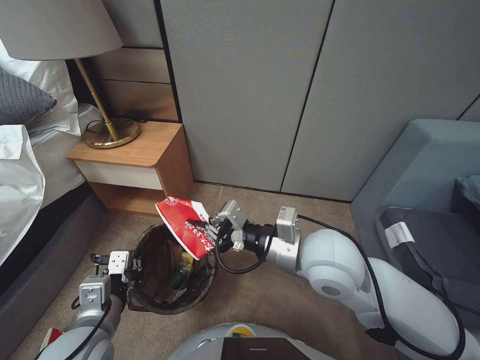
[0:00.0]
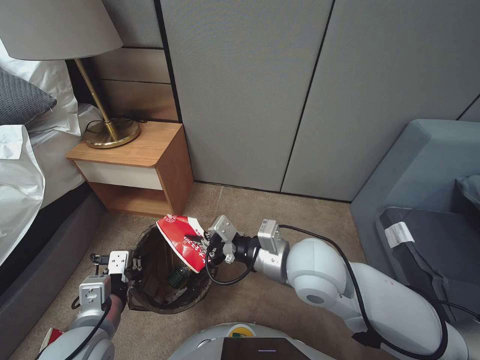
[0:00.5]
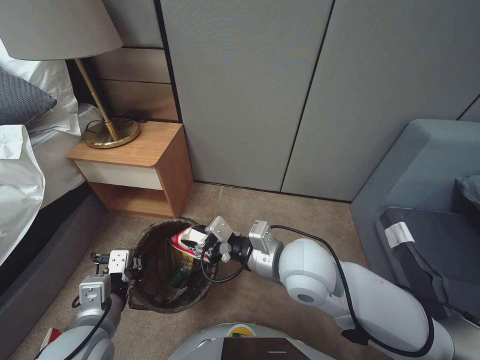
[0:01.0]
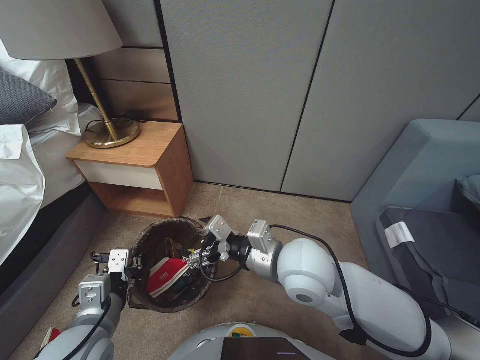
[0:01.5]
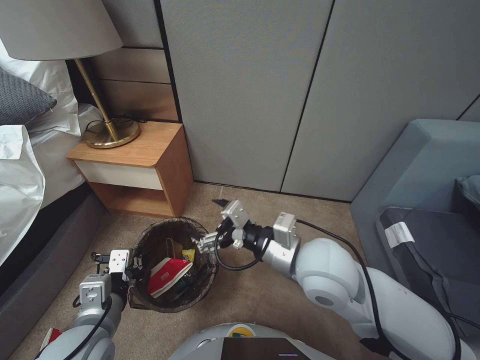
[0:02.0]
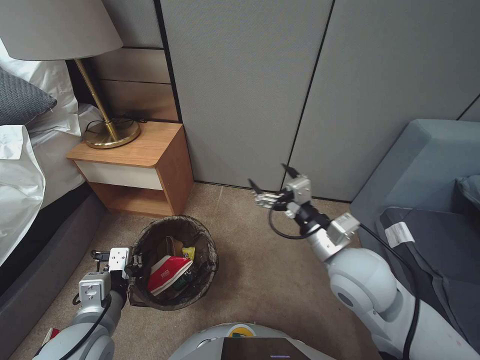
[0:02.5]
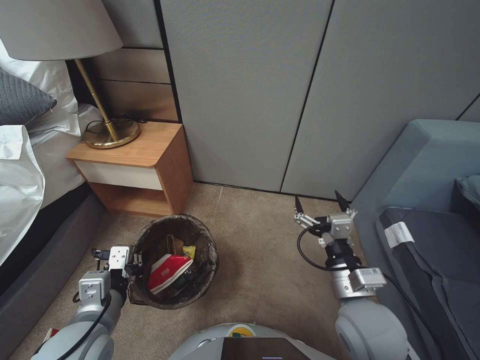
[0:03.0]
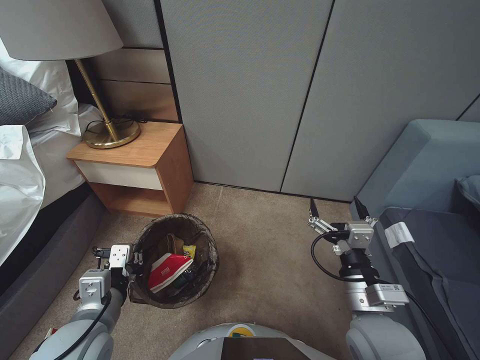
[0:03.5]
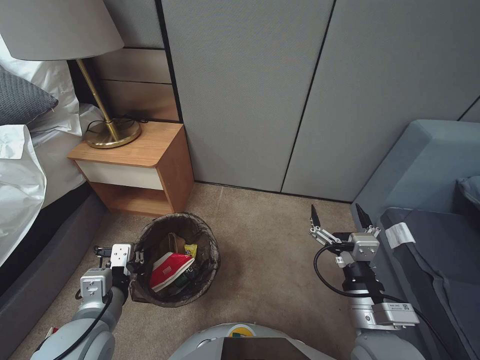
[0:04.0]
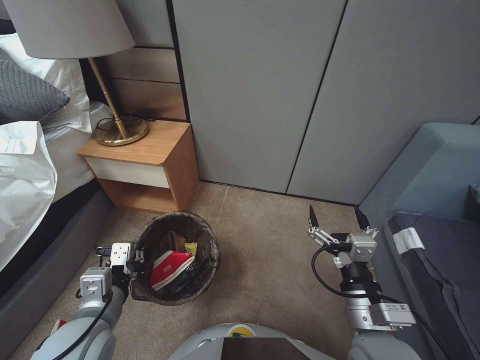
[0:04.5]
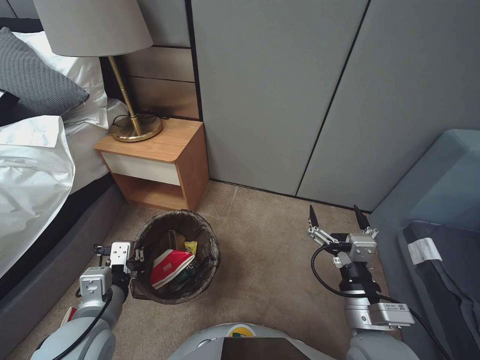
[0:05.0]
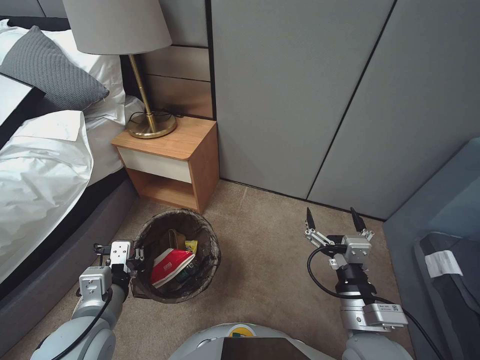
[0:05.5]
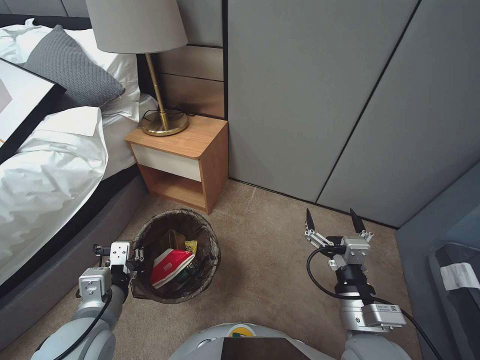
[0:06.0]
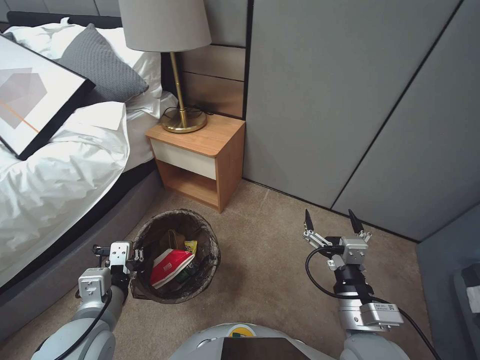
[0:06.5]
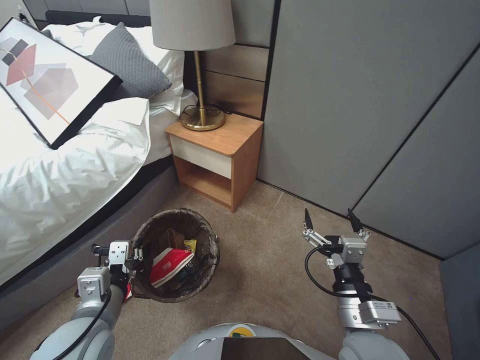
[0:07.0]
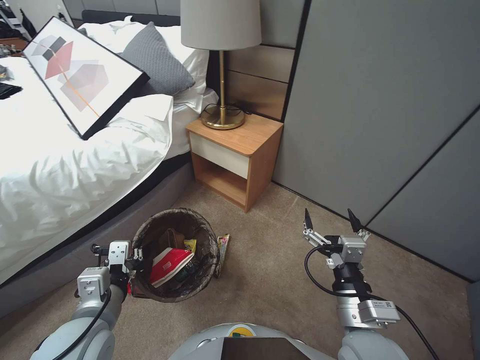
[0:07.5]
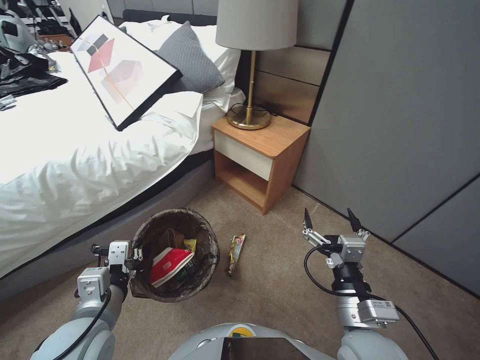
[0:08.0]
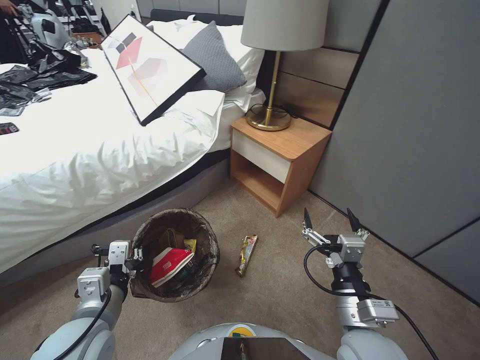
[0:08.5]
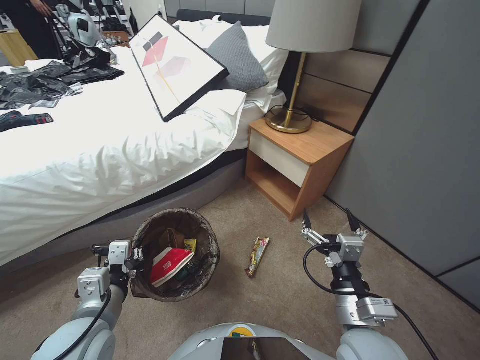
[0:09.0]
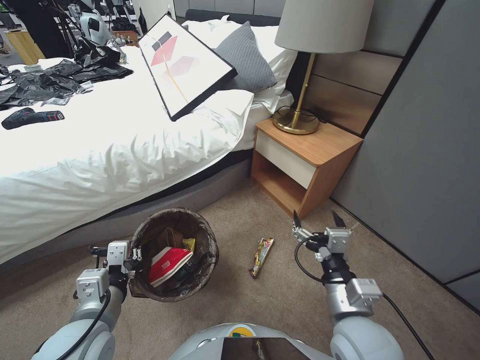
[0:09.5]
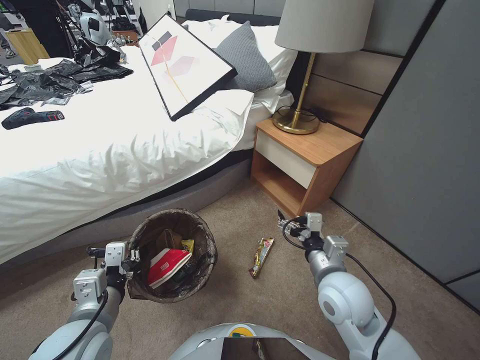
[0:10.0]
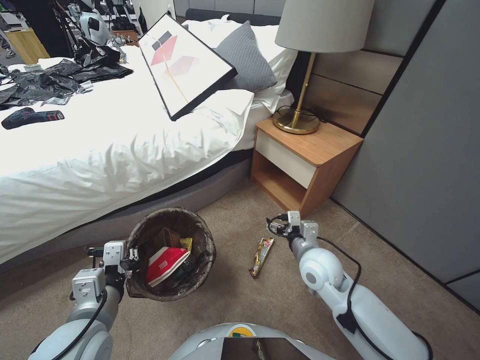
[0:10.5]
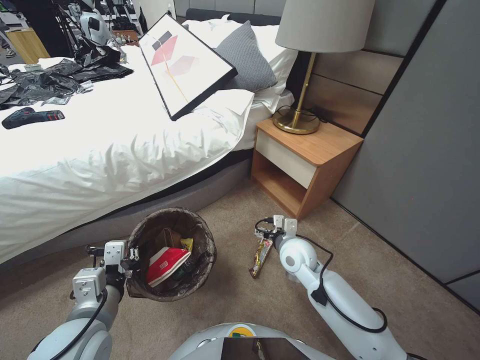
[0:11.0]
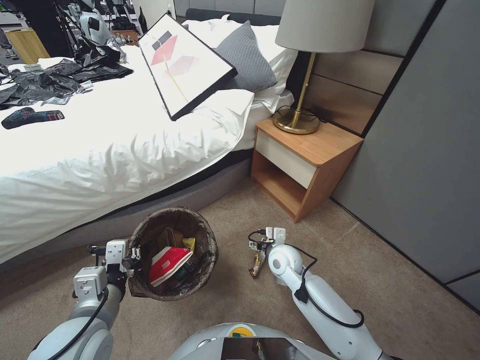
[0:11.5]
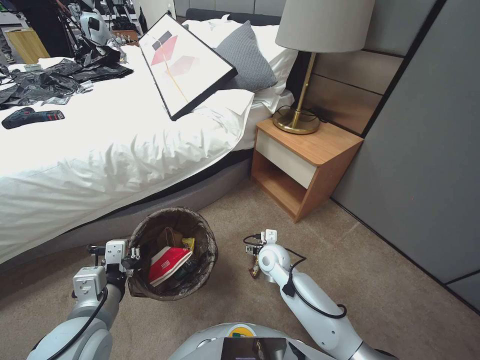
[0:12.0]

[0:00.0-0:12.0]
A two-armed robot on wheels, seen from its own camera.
Task of the whole recording: Pick up the trash bin, then pick up the garbage from the floor and place it into the trash bin.
0:00.0 to 0:02.0: The right gripper opens its fingers.
0:02.0 to 0:04.0: The right gripper moves backward, to the right and downward, about 20 cm.
0:08.0 to 0:10.0: The right gripper is displaced forward by roughly 10 cm.
0:10.0 to 0:12.0: The right gripper is displaced downward, forward and to the left by about 20 cm.

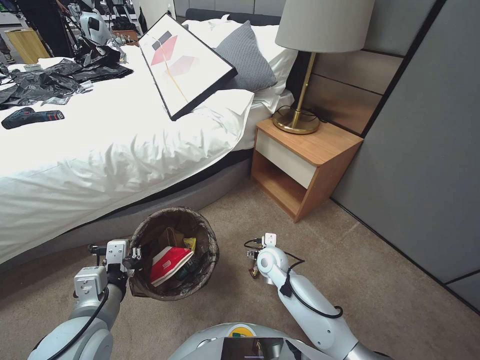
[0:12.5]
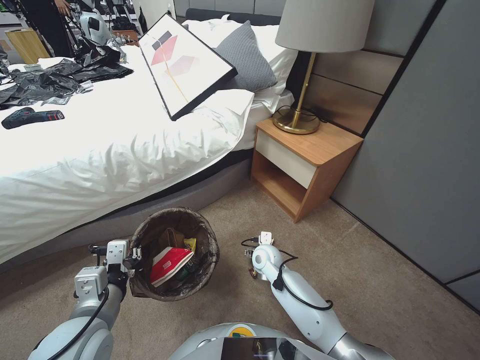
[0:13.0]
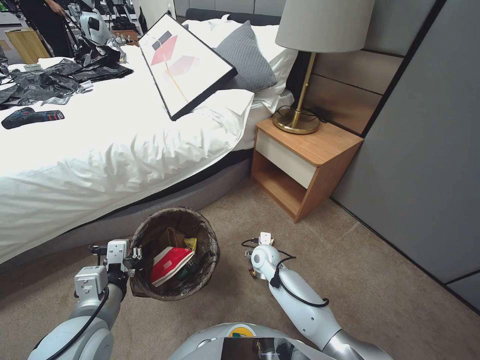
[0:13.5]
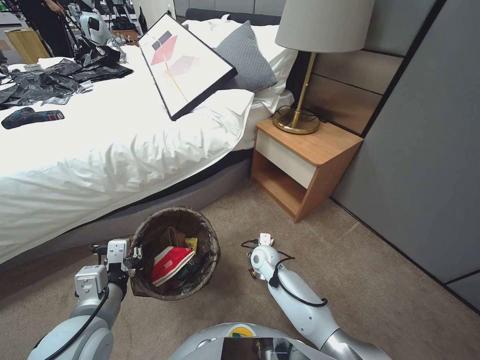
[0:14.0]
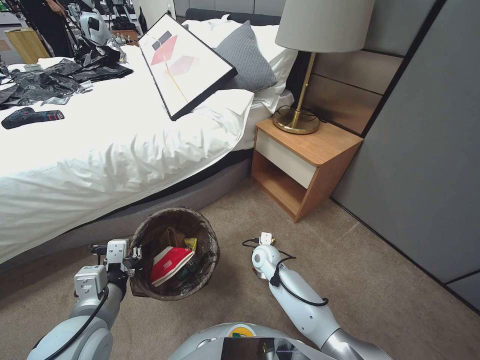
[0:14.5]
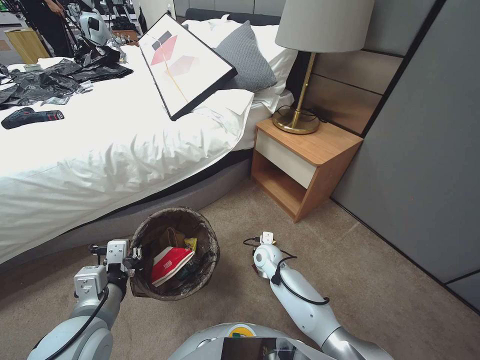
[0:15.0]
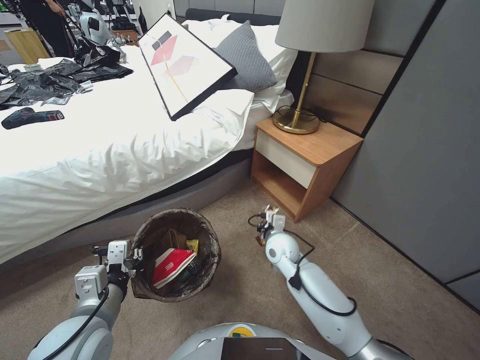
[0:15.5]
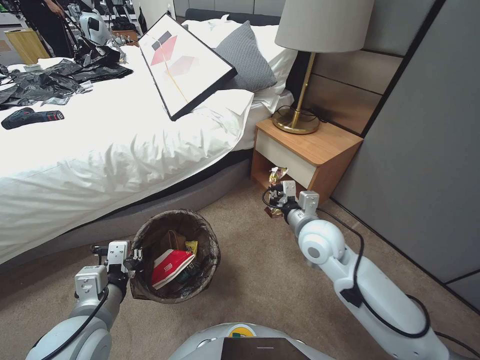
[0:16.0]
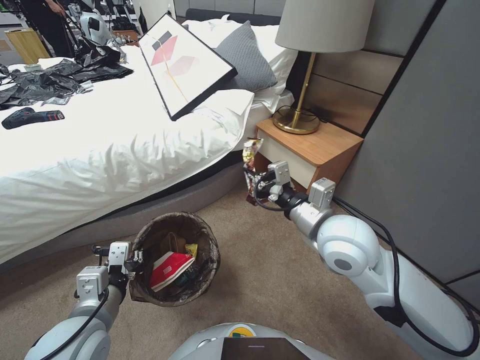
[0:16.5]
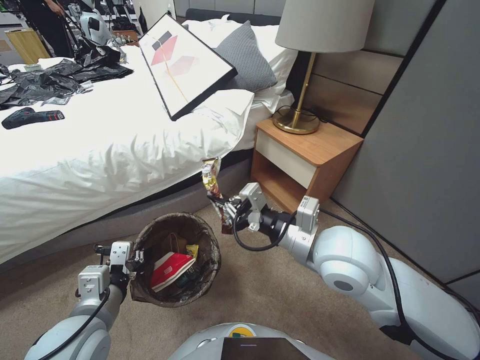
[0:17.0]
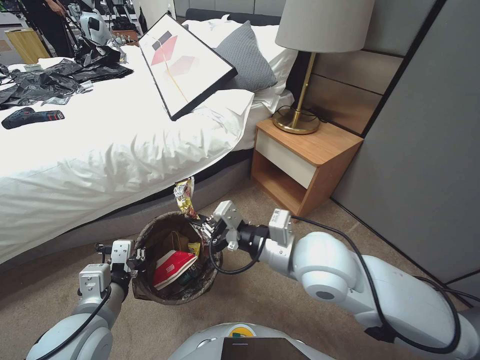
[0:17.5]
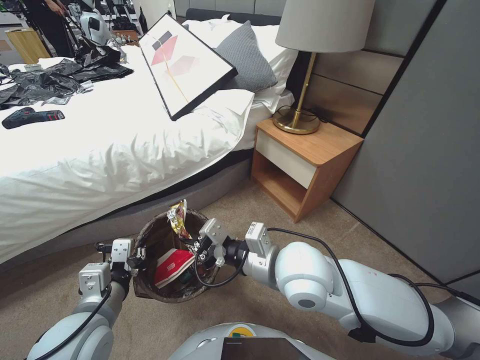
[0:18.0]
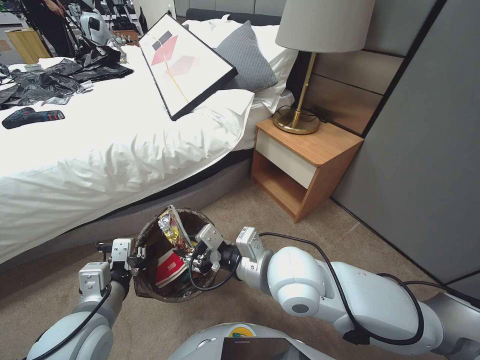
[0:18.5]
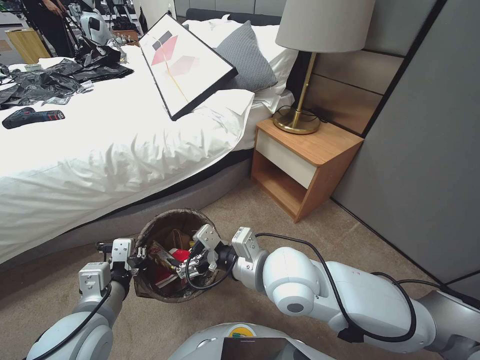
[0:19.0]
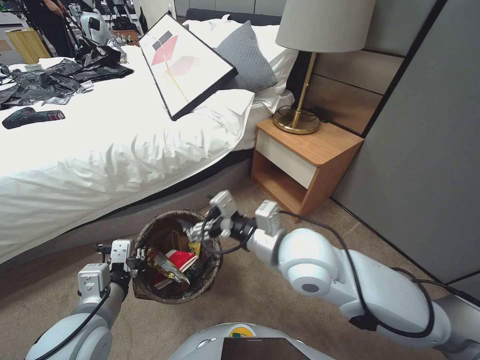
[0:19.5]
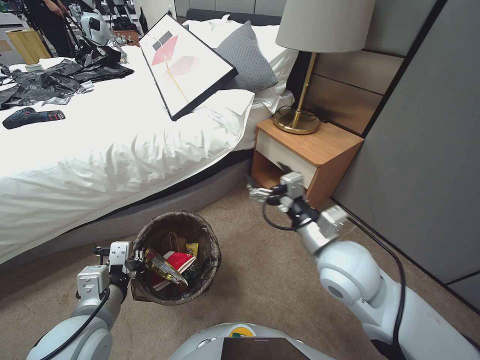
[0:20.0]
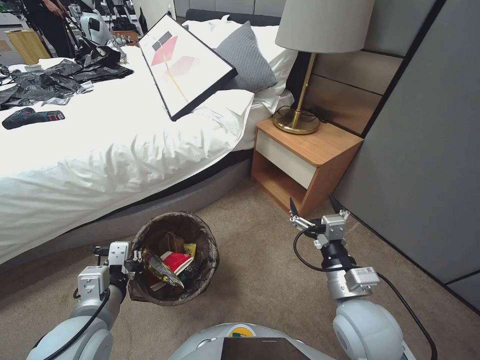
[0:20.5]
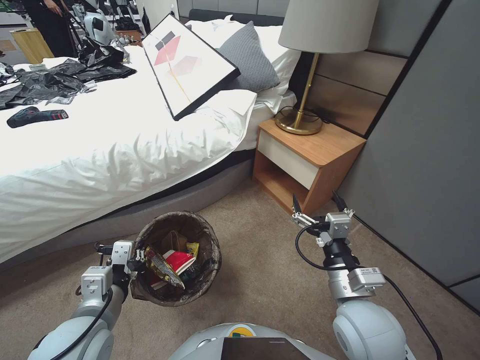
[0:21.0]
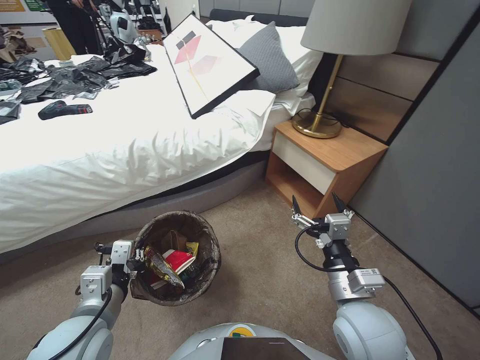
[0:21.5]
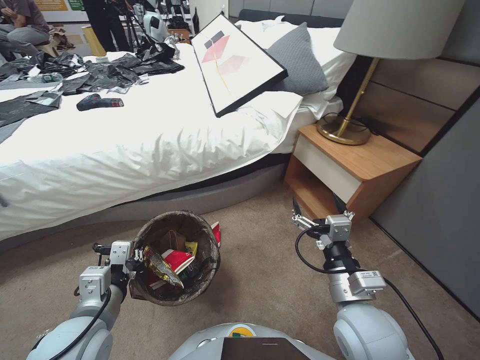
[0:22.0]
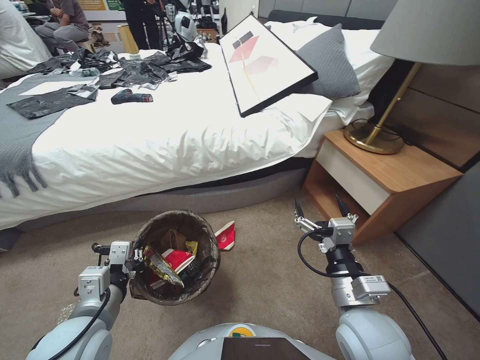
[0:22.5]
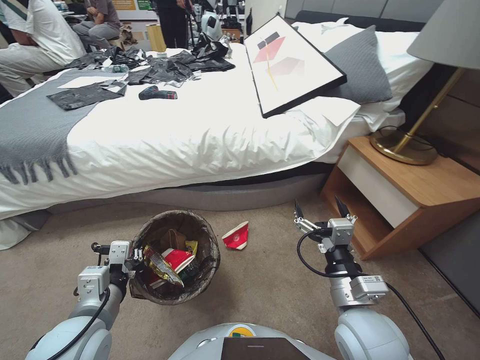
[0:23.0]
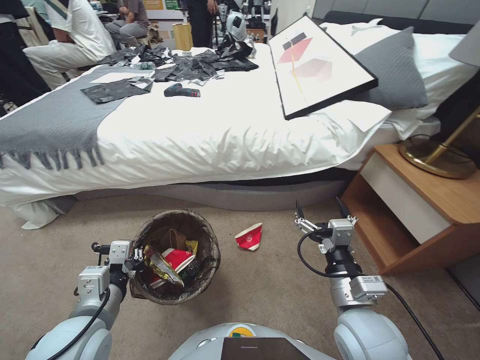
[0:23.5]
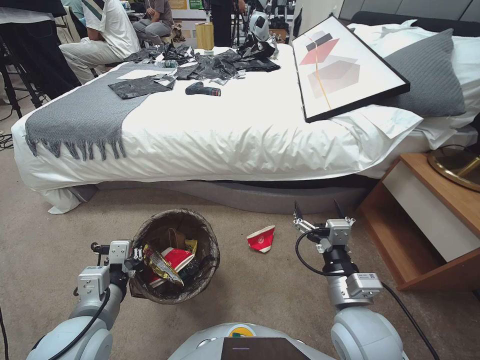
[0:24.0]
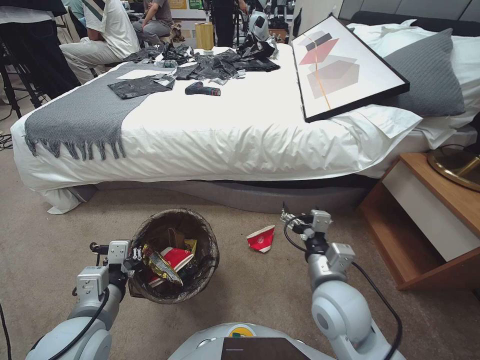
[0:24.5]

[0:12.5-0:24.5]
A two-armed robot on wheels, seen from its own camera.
Task of the whole recording: Pick up the trash bin, then pick up the garbage from the floor and place it into the trash bin.
0:12.5 to 0:14.5: The right gripper closes its fingers.
0:14.5 to 0:16.5: The right gripper goes roughly 35 cm upward, and closes up.
0:16.5 to 0:18.5: The right gripper shifts roughly 10 cm to the left.
0:18.5 to 0:20.5: The right gripper heads to the right and downward, covering approximately 15 cm, and opens up.

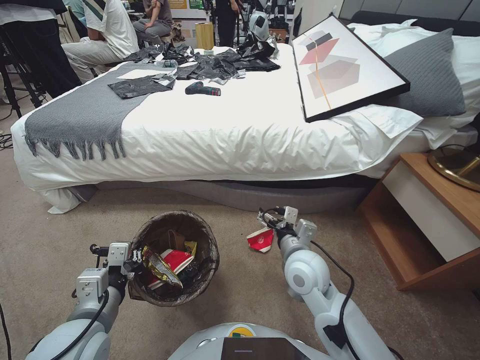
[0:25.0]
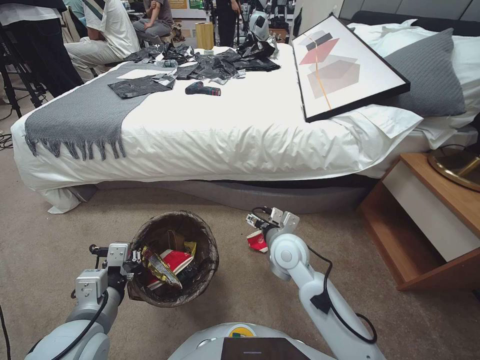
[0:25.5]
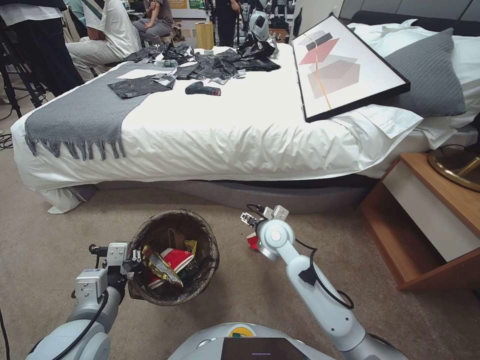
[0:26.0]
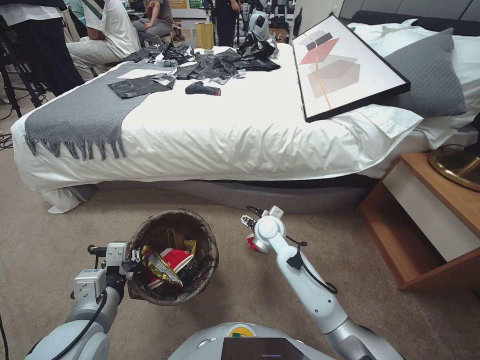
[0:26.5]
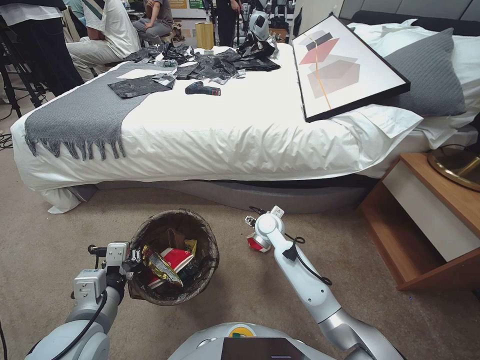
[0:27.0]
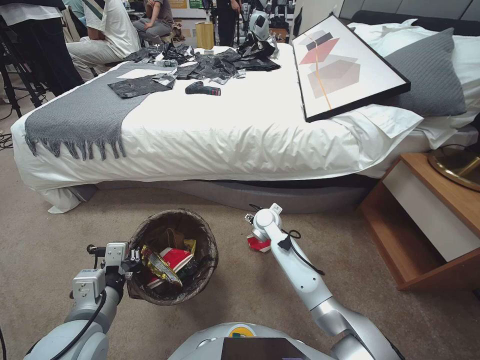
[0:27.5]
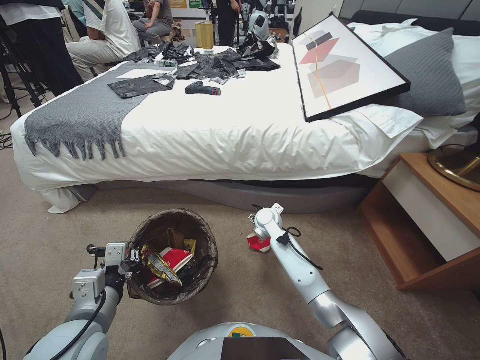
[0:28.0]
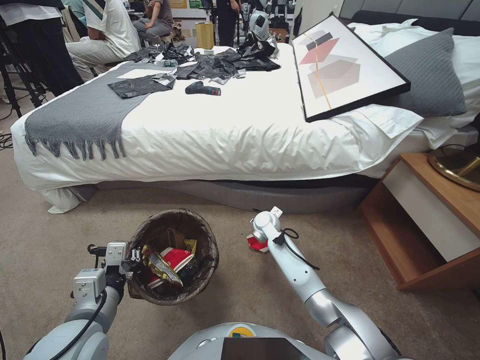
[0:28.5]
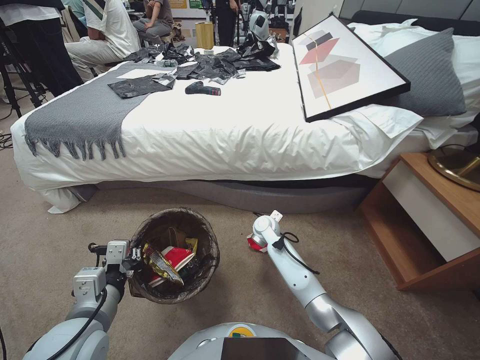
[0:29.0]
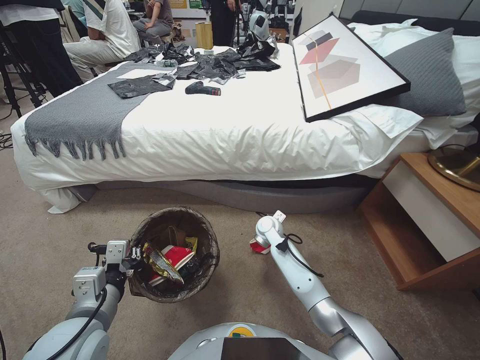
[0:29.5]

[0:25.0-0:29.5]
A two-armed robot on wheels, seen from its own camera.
Task of the whole recording: Pick up the trash bin, then pick up the garbage from the floor and place it into the trash bin.
0:25.0 to 0:27.0: The right gripper heads forward and downward, covering some 20 cm.
0:27.0 to 0:29.5: The right gripper shifts approximately 5 cm downward, and closes.
